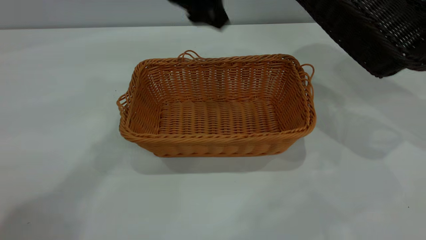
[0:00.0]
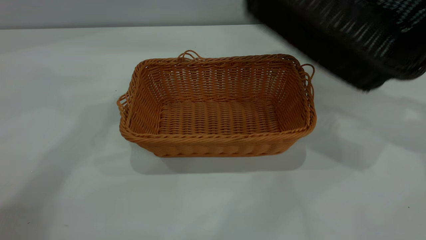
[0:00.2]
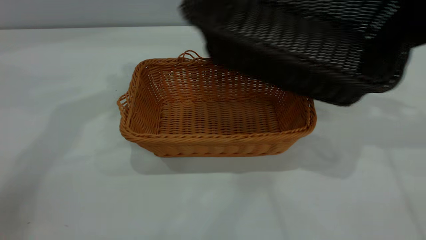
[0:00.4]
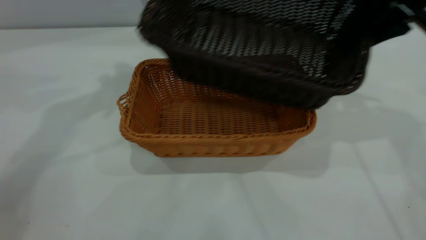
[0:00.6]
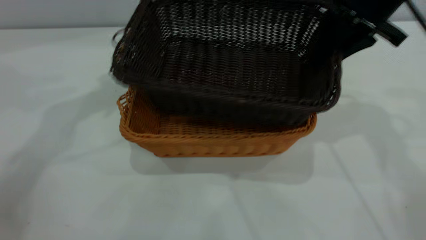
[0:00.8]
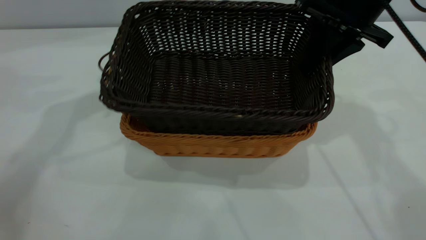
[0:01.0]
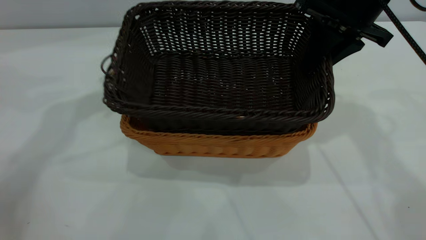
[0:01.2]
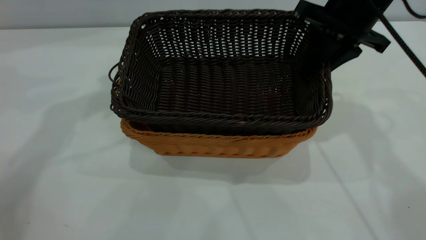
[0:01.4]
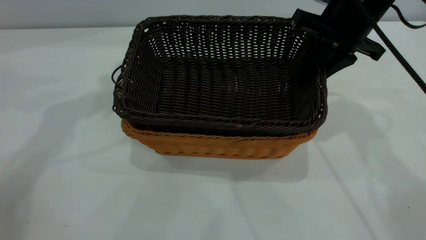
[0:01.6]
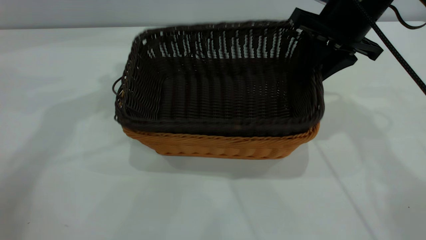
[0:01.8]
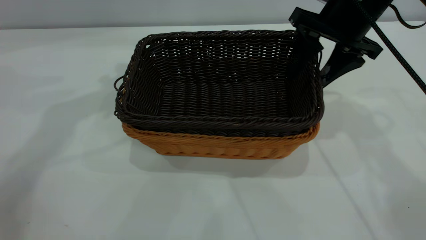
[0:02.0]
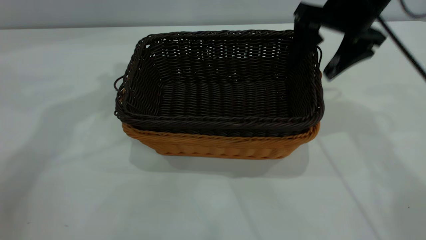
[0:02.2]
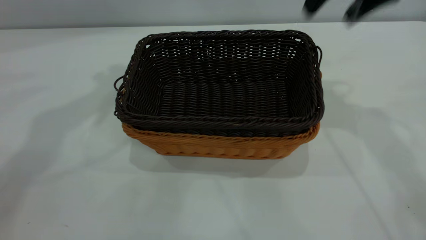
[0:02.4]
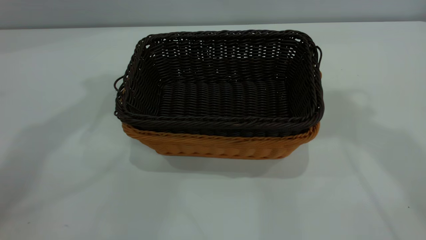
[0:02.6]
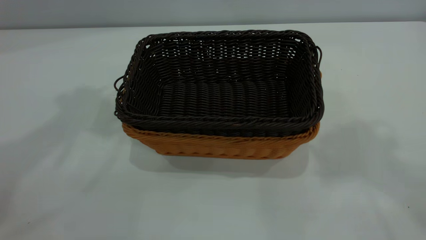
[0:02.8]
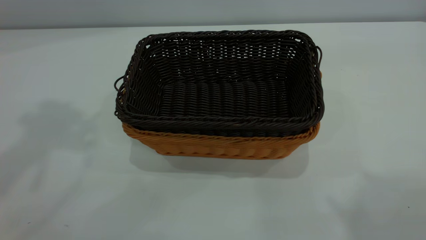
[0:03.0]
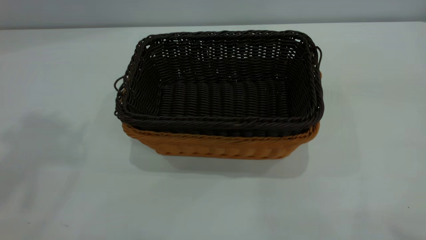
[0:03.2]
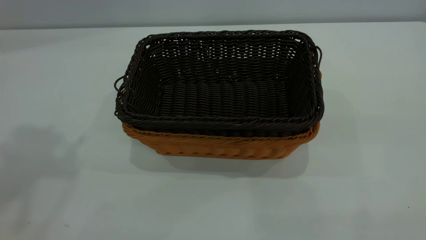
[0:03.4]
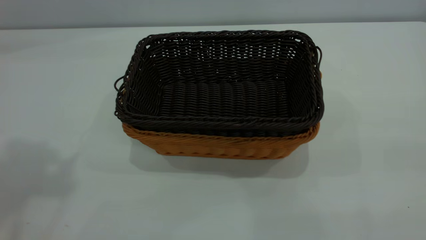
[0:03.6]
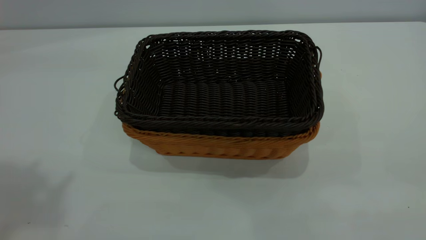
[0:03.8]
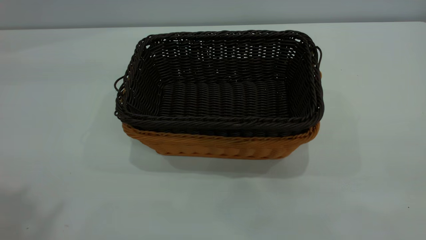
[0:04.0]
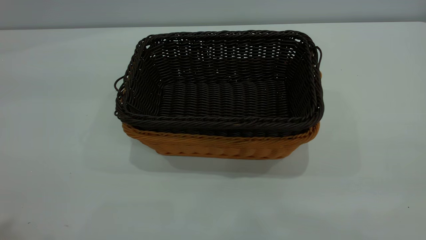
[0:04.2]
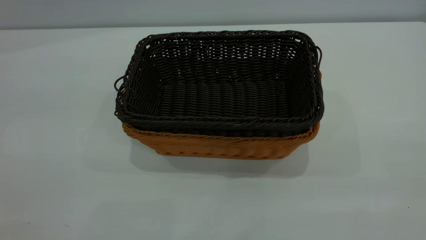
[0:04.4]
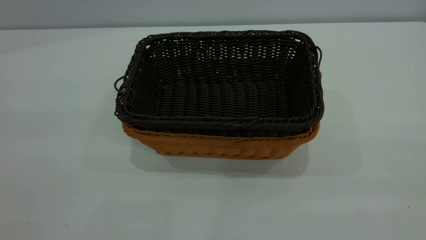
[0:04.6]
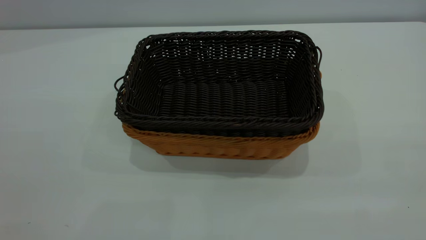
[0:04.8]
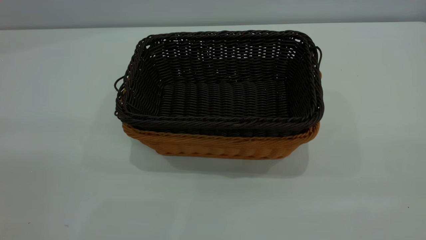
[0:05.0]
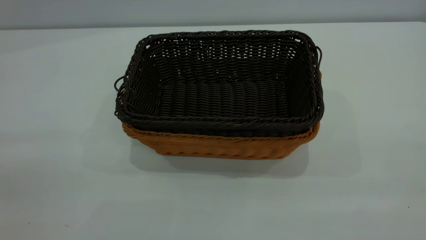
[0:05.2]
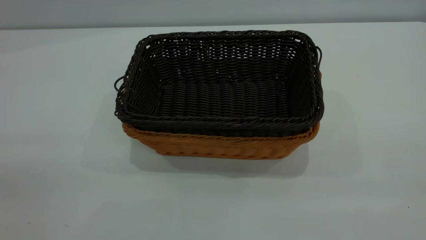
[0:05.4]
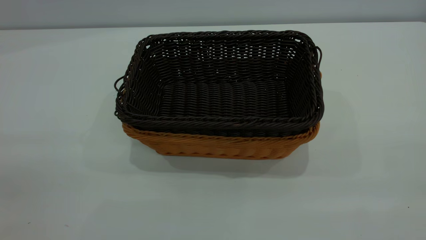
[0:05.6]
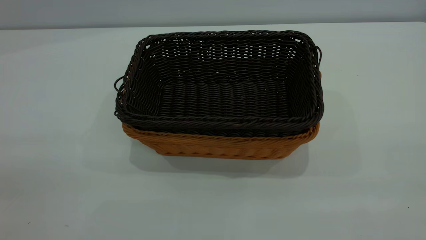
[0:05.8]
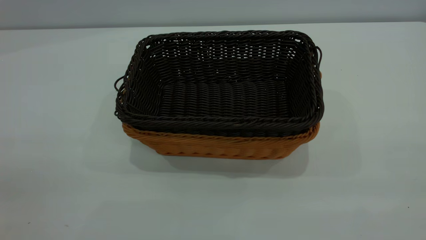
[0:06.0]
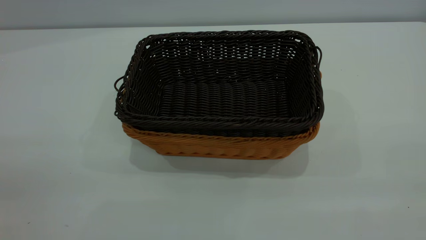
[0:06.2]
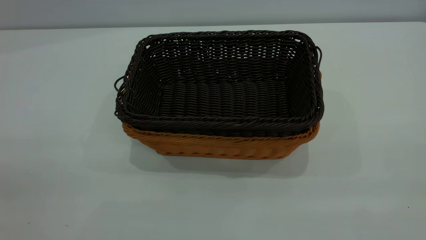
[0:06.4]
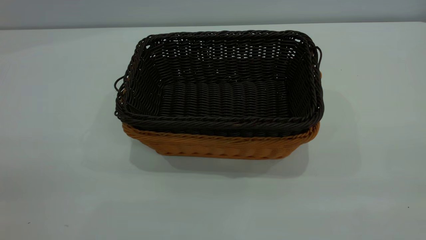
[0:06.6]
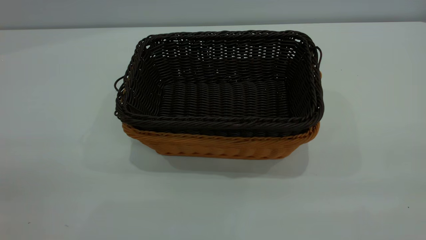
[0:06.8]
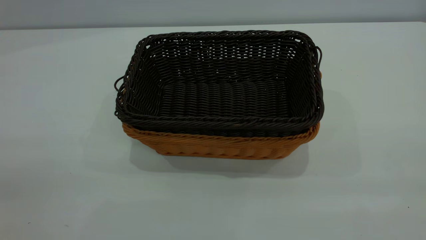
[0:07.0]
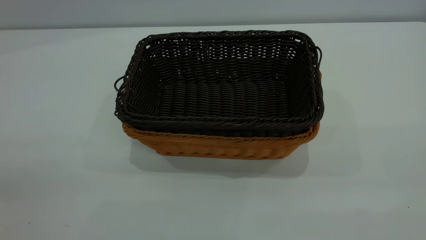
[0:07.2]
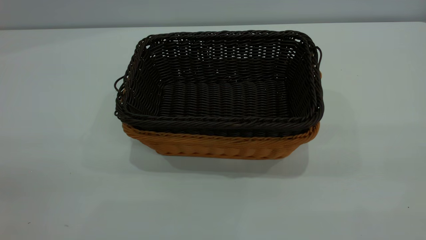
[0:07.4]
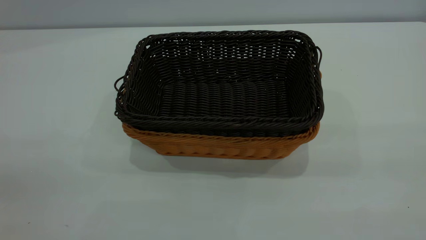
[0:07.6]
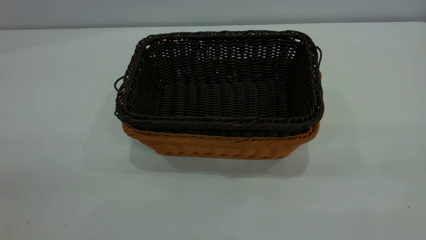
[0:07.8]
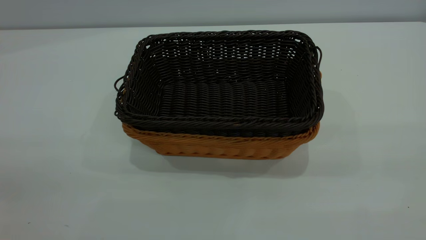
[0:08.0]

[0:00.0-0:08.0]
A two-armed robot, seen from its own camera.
Task of the whole recording: the left gripper grasp the brown basket and place it in the center of the table, the right gripper grasp the black basket and place it inside the brown one.
Step, 0:00.0 to 0:02.2: Place the dark basket on top of the light basket.
0:00.0 to 0:01.6: The left gripper shifts roughly 15 cm to the left and upward; the right gripper shifts approximately 20 cm to the left.
0:01.6 to 0:03.2: The right gripper goes approximately 40 cm backward and upward, and opens its fingers; the left gripper is displaced upward and backward by roughly 25 cm.
